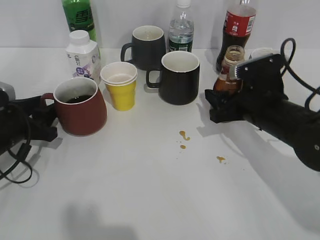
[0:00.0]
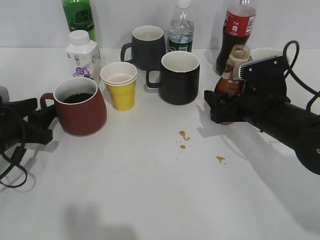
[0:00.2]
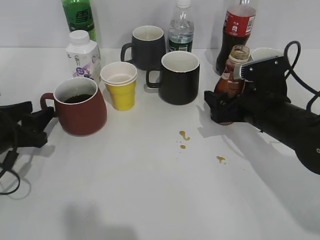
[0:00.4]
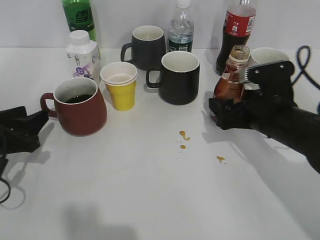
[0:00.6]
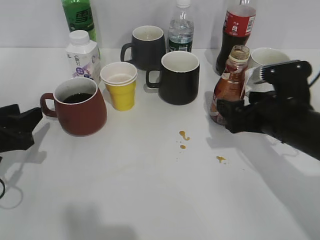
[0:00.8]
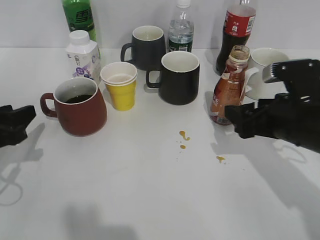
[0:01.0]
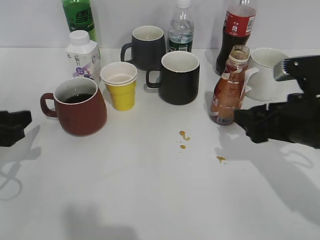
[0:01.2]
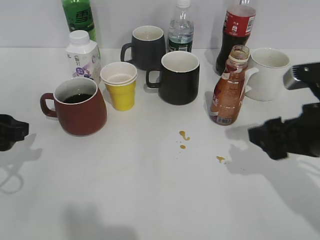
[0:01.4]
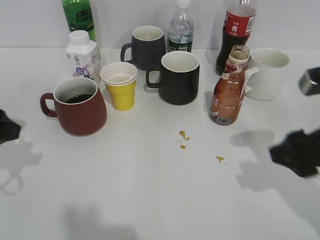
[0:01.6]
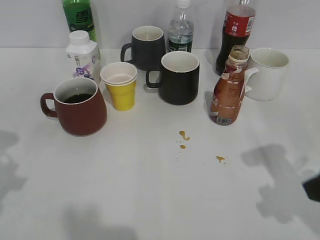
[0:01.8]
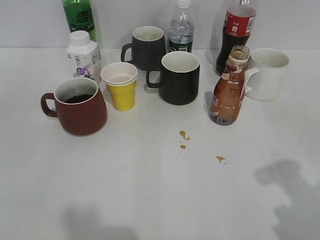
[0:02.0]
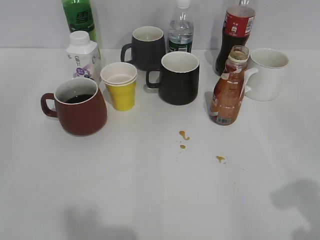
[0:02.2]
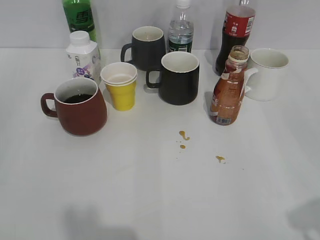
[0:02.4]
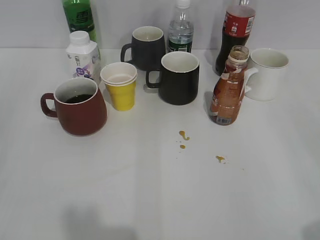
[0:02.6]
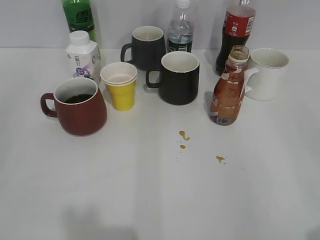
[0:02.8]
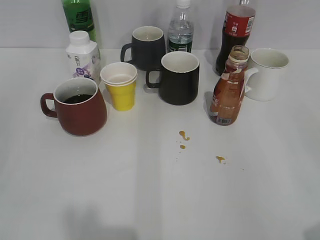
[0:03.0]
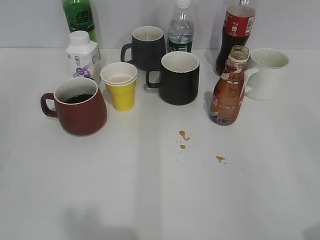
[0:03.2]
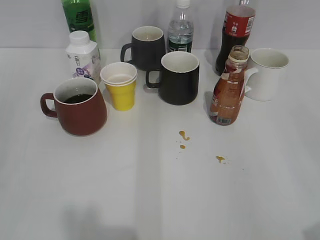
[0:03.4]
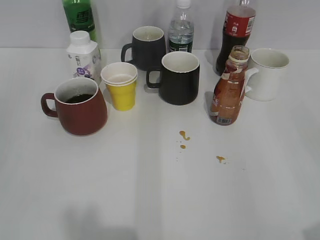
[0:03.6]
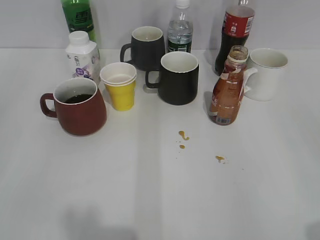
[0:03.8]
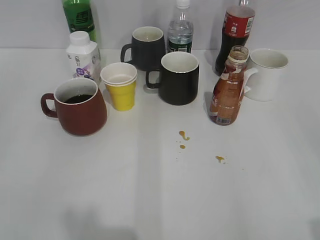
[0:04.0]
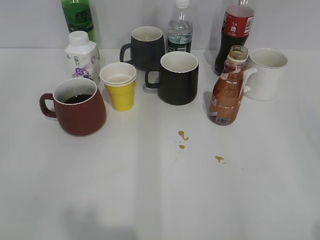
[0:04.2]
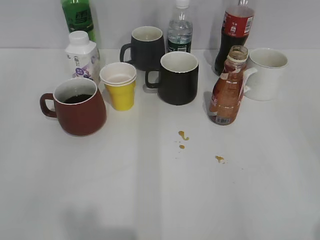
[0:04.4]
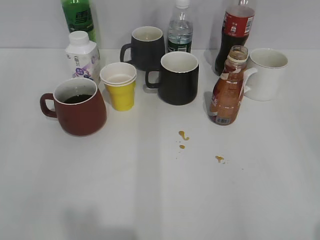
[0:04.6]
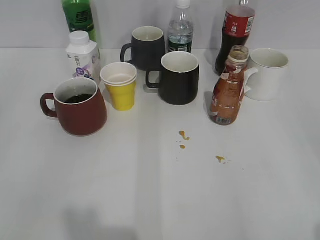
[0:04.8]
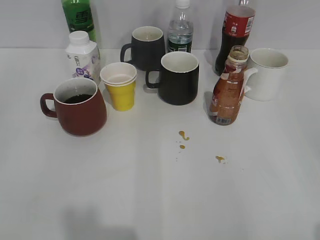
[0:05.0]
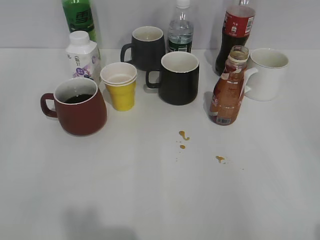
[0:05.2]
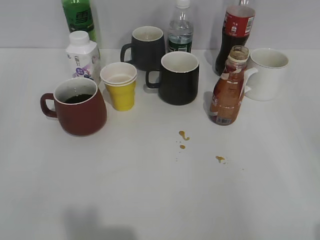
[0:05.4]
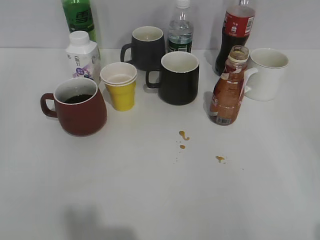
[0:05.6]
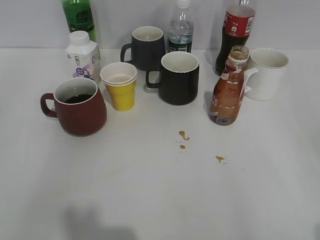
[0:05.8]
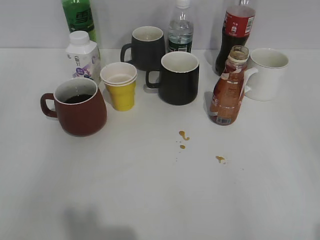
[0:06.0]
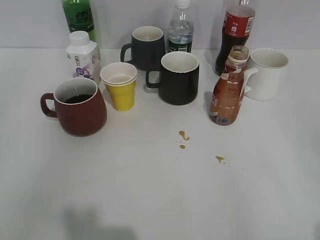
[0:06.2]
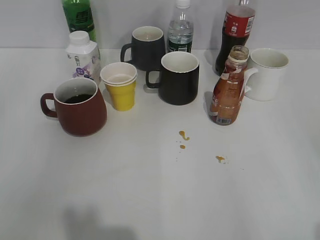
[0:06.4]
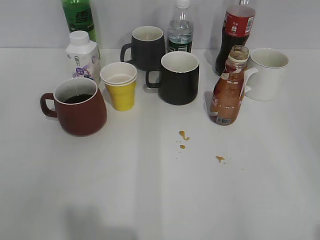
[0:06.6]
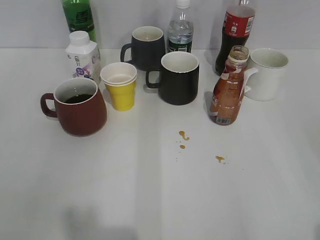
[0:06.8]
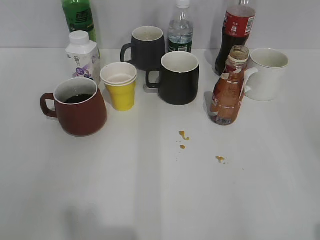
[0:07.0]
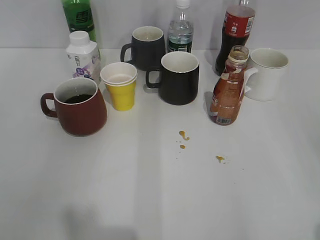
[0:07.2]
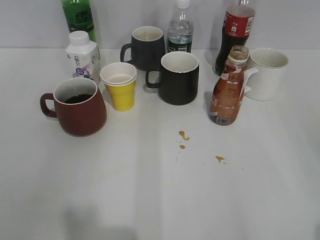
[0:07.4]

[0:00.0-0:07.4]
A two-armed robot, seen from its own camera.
0:00.0 to 0:01.4: The left gripper heads upward and backward, covering some 10 cm. Meanwhile the right gripper goes some 10 cm backward and upward, and opens its fingers.
0:01.4 to 0:03.0: The left gripper moves backward and upward, about 20 cm. The right gripper travels backward, to the right and upward by about 25 cm.
0:04.4 to 0:07.4: The two grippers keep their place.

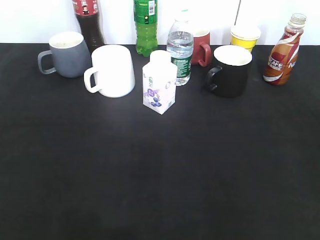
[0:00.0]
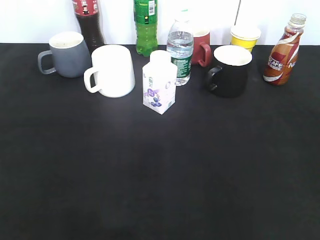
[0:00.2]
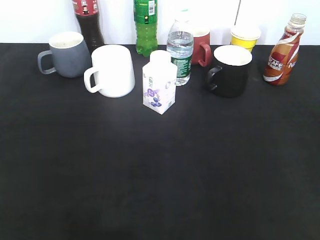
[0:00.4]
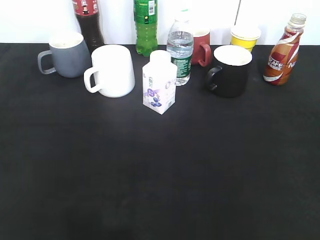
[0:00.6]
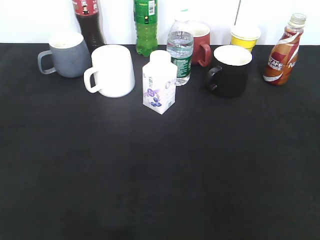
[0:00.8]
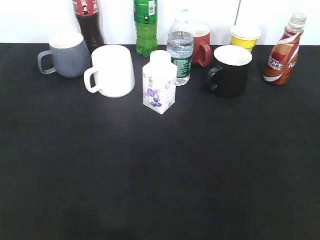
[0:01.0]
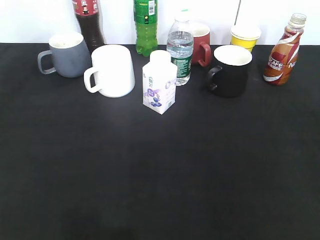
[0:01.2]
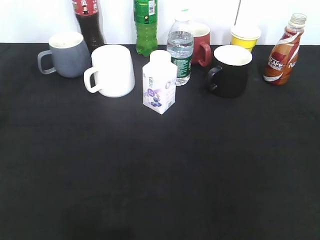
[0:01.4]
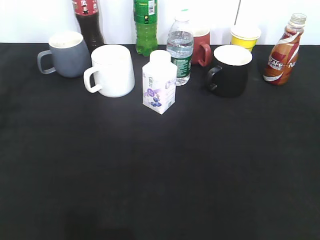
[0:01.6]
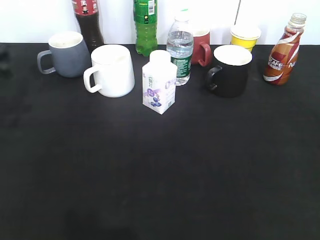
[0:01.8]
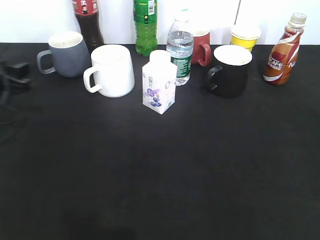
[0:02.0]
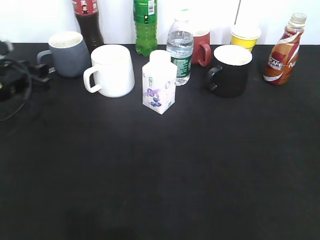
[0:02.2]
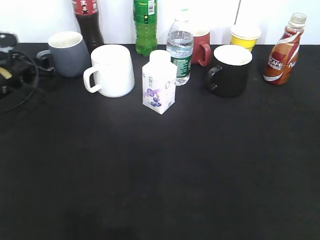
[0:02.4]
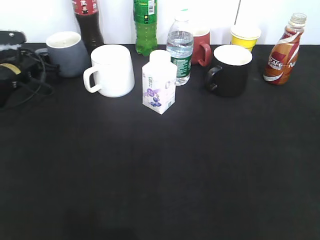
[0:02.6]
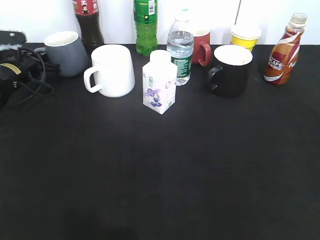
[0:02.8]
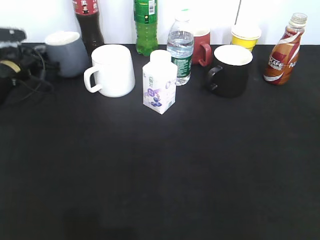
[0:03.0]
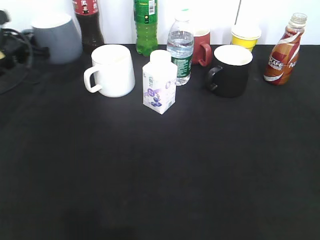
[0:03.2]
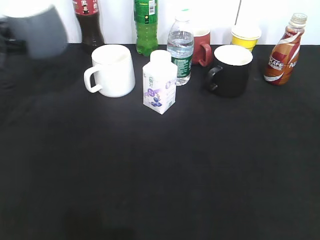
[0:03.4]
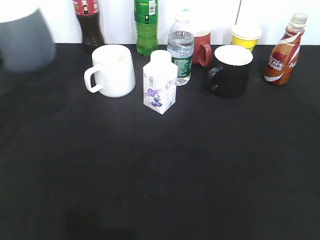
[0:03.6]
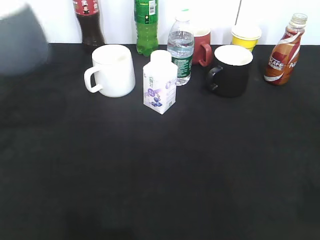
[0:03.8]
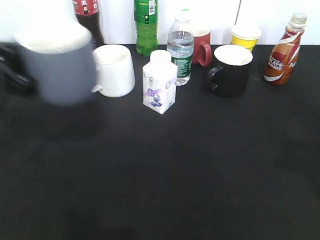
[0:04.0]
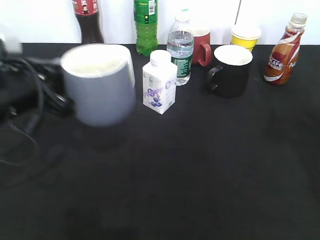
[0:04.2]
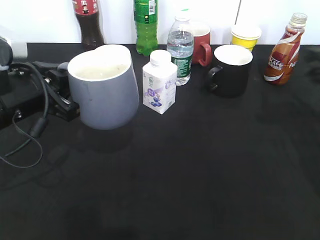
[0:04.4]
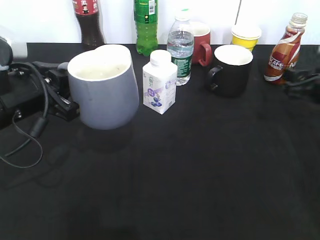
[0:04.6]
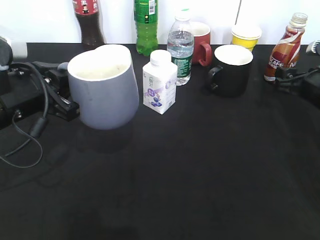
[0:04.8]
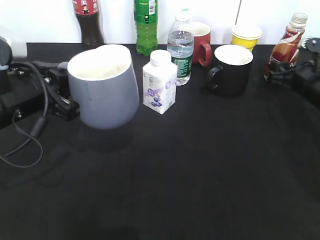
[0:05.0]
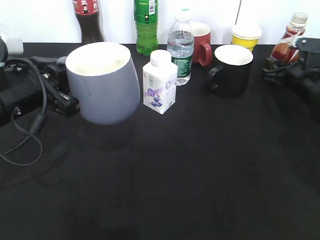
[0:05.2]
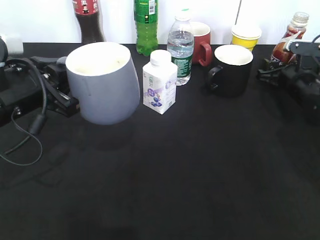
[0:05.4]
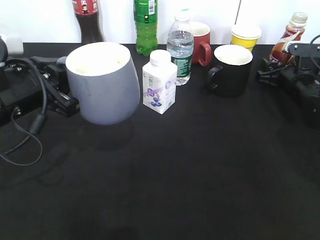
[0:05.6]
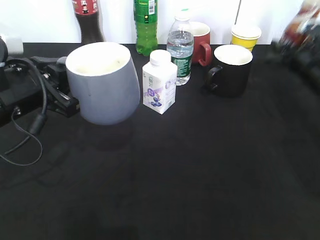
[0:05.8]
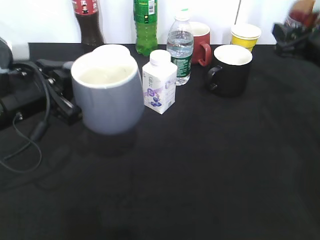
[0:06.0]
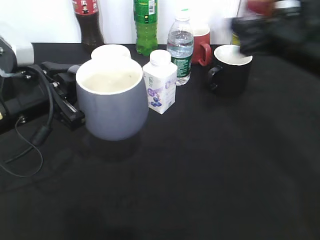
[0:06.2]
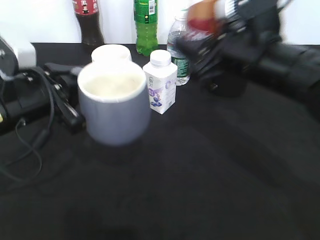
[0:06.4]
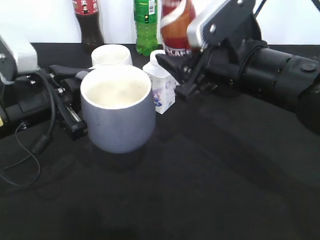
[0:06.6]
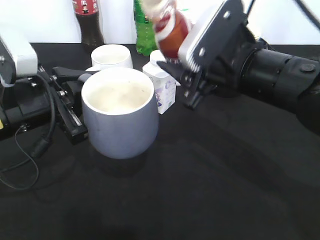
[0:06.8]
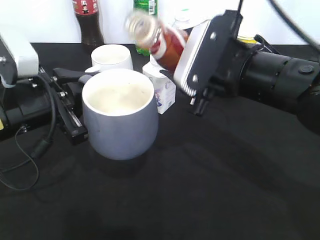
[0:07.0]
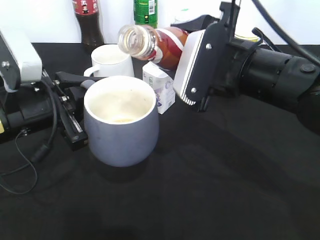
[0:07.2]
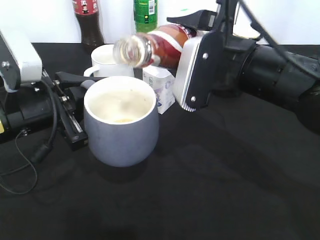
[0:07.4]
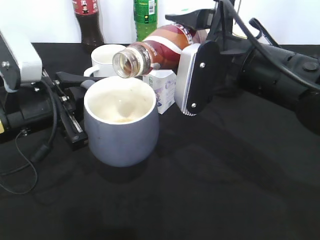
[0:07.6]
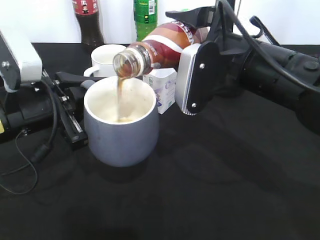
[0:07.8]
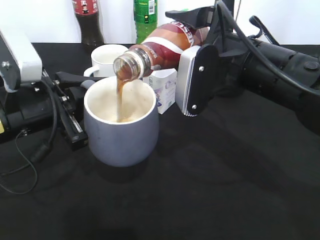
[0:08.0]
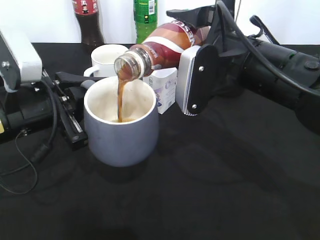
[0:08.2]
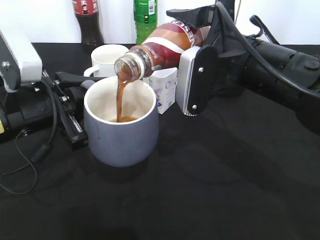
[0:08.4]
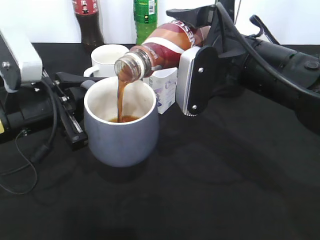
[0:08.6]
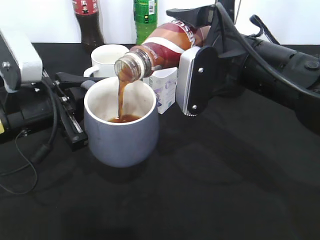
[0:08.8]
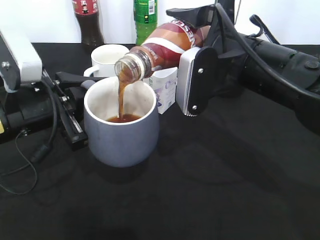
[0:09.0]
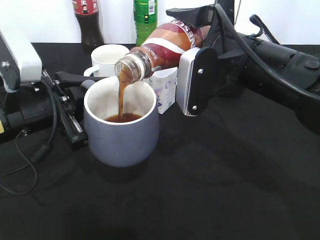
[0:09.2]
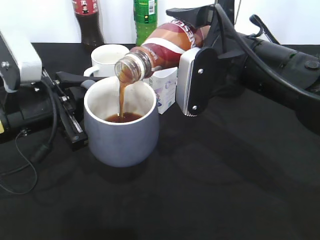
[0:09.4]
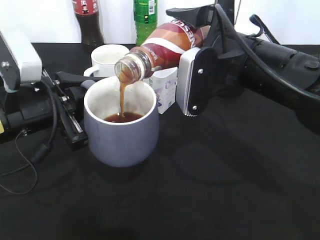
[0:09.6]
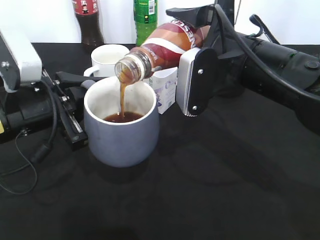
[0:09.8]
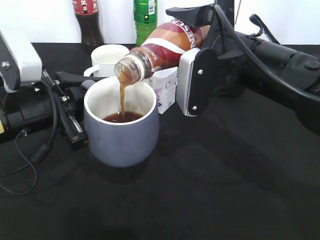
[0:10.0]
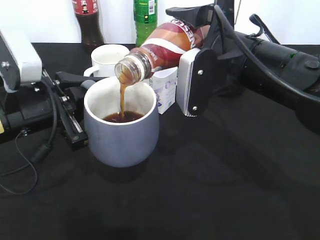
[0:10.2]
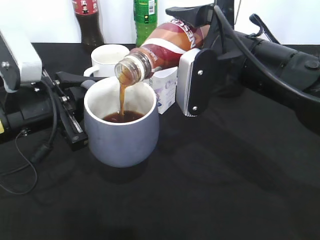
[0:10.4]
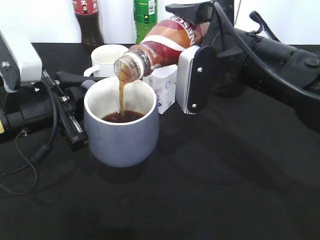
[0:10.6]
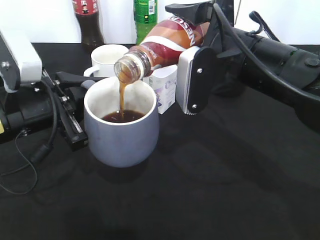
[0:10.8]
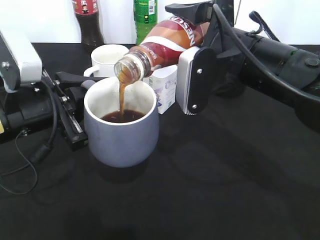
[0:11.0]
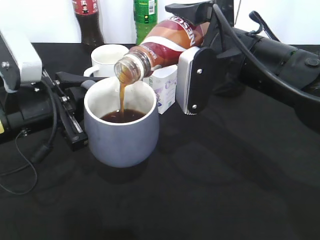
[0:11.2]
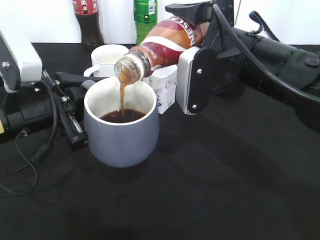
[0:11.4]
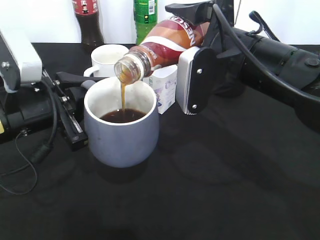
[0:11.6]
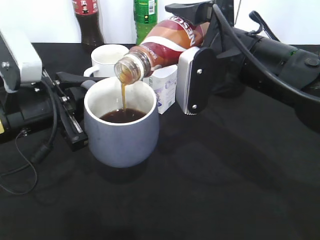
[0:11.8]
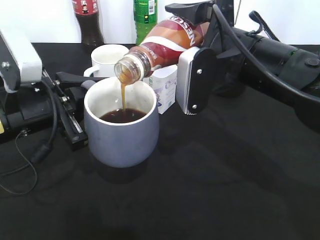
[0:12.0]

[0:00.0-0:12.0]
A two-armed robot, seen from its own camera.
Step, 0:00.0 to 0:02.6: Grasp the grey cup with left gripper.
Step, 0:03.0 to 0:04.2: Lift the grey cup with left gripper.
Step, 0:04.4 to 0:05.4: Grasp the bottle with coffee with right gripper.
0:00.0 to 0:01.6: The left gripper heads forward, covering roughly 30 cm.
0:01.6 to 0:03.0: The left gripper travels forward and downward by roughly 20 cm, and closes.
0:03.0 to 0:04.4: The right gripper travels forward by roughly 25 cm. The left gripper travels backward and to the right by approximately 25 cm.
0:04.4 to 0:06.0: The right gripper travels forward by roughly 5 cm.
0:06.0 to 0:07.6: The right gripper shifts approximately 20 cm to the left and backward.
0:07.6 to 0:09.0: The grippers make only small movements.
0:09.0 to 0:12.0: The two grippers keep their place.

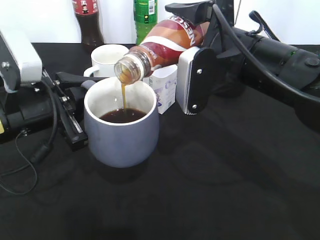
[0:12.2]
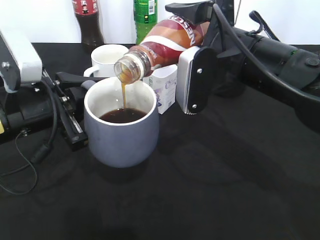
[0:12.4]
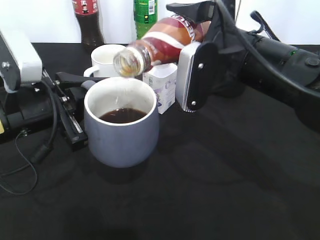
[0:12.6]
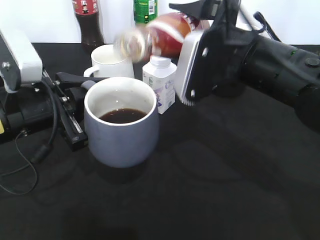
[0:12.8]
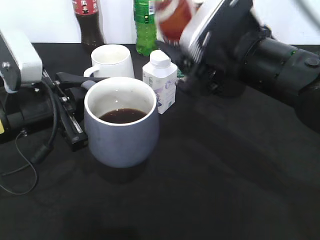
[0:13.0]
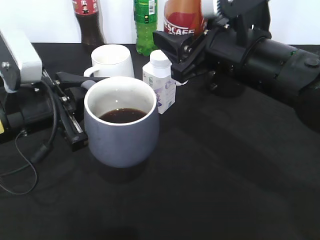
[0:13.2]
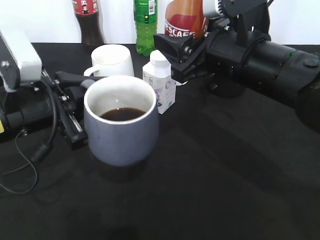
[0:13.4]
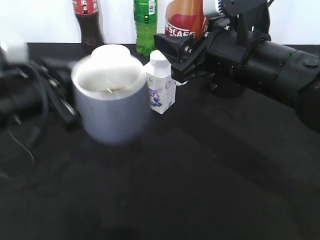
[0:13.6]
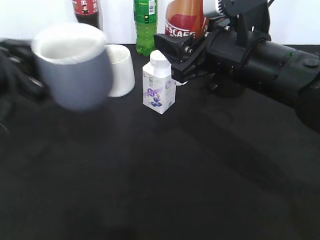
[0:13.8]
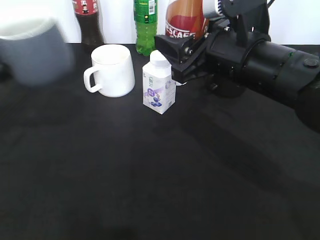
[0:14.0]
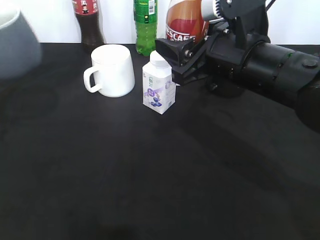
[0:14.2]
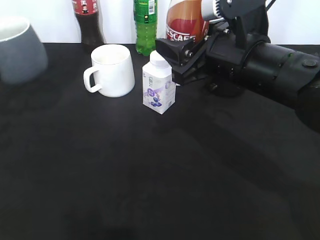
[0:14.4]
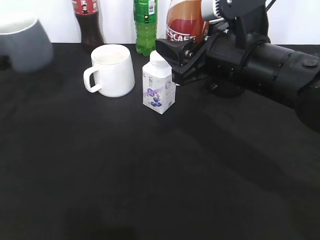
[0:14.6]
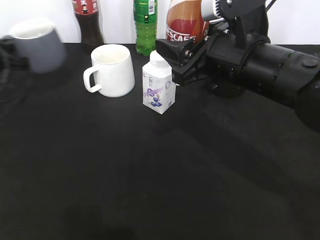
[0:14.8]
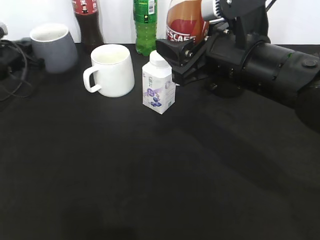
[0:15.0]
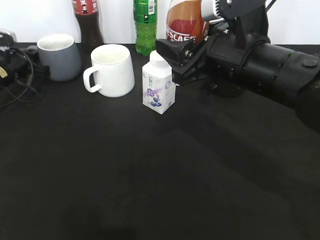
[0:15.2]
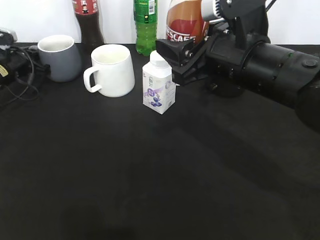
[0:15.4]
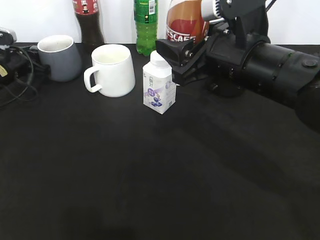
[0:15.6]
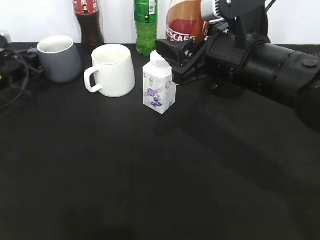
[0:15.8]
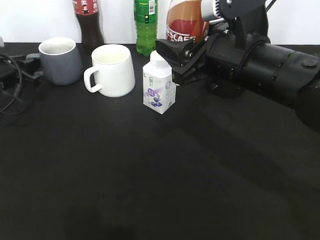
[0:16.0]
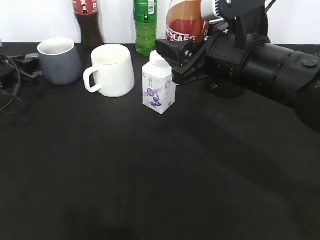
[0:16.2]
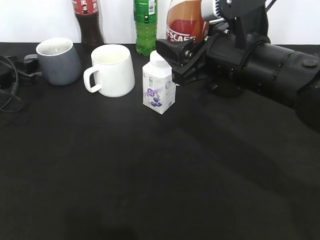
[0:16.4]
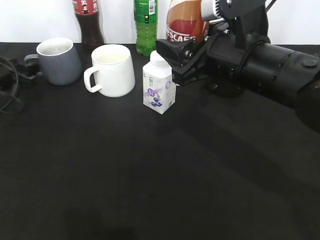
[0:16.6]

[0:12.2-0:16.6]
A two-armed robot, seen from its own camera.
0:13.6 to 0:15.2: The left gripper travels forward, to the left and downward by roughly 30 cm.
0:15.2 to 0:16.6: The left gripper moves backward, some 5 cm, and opens its fingers.
